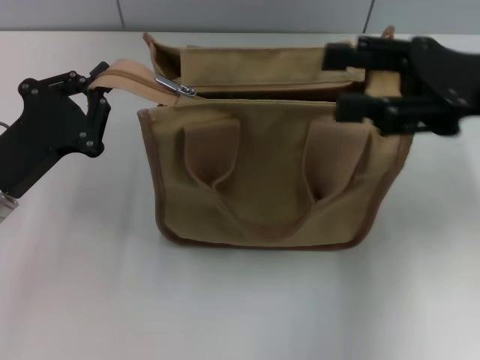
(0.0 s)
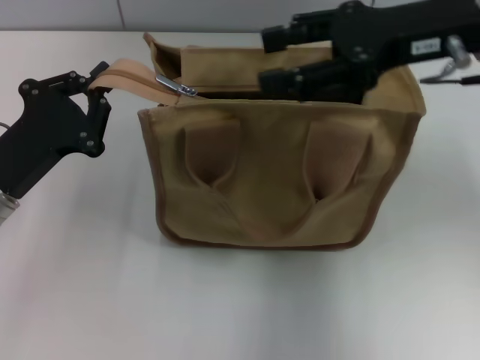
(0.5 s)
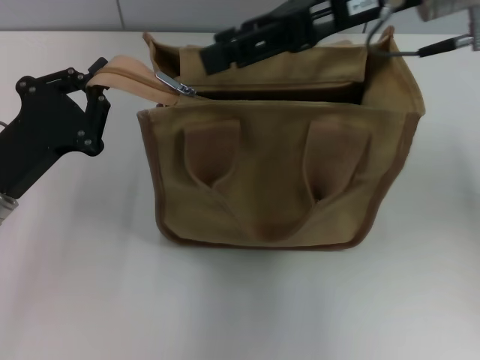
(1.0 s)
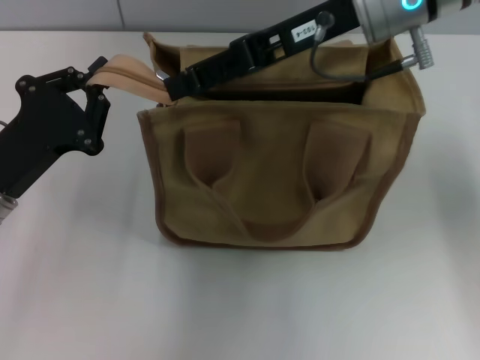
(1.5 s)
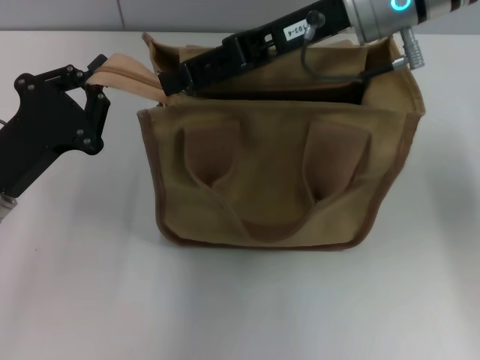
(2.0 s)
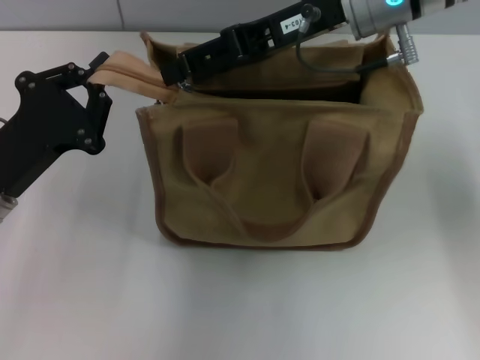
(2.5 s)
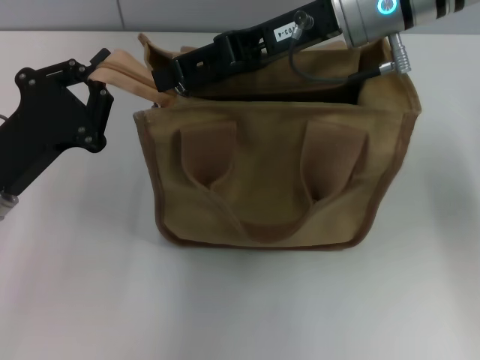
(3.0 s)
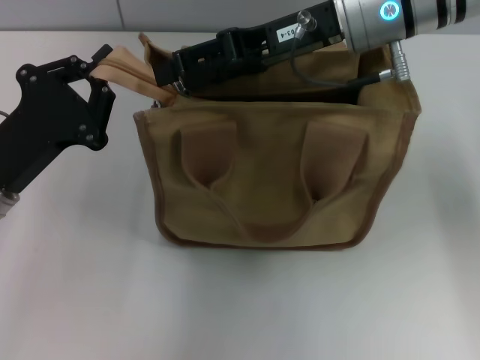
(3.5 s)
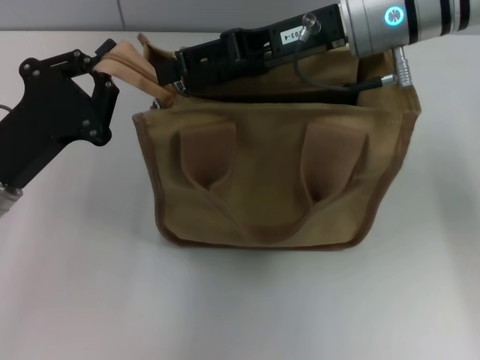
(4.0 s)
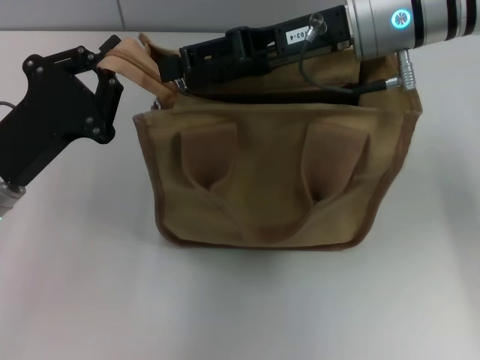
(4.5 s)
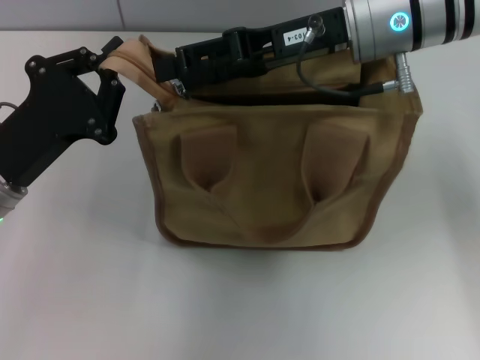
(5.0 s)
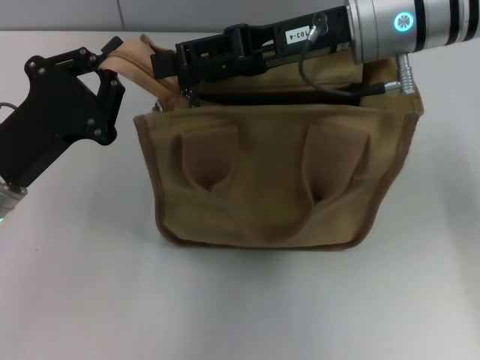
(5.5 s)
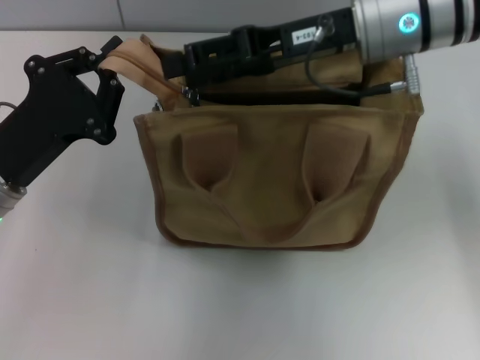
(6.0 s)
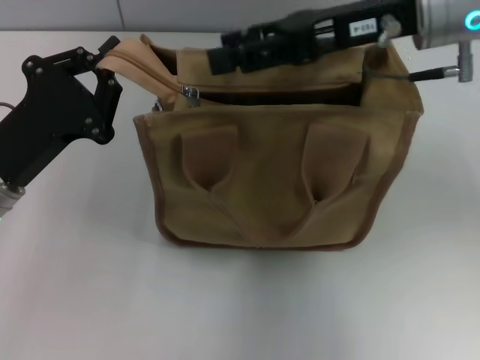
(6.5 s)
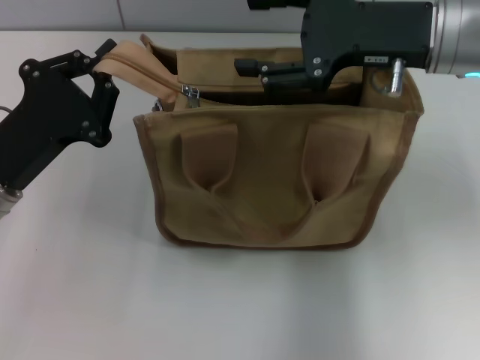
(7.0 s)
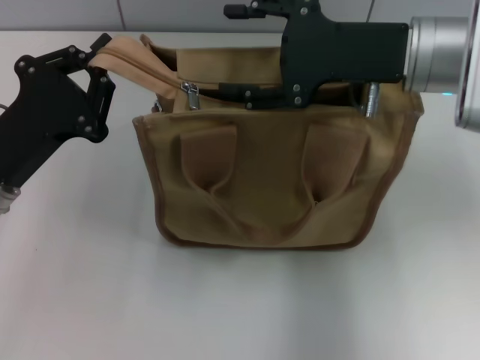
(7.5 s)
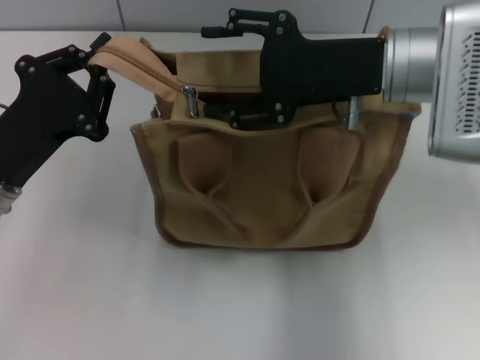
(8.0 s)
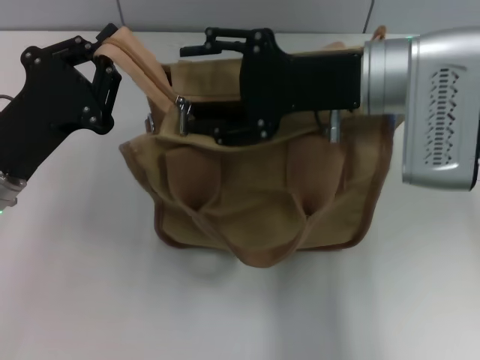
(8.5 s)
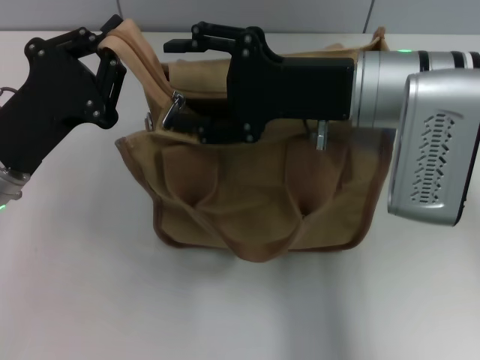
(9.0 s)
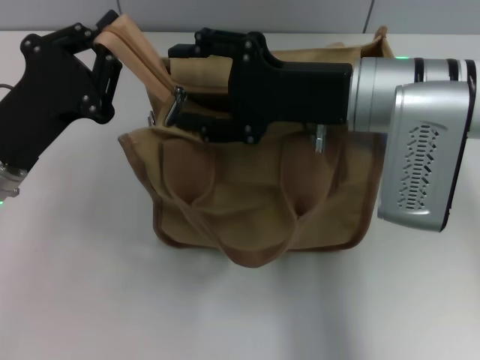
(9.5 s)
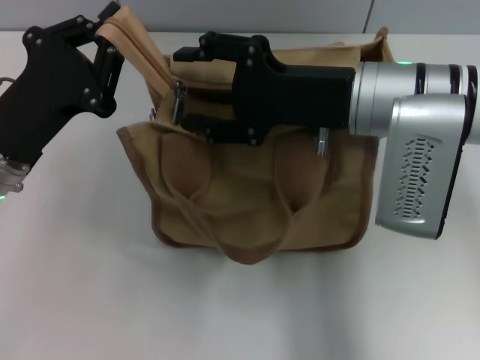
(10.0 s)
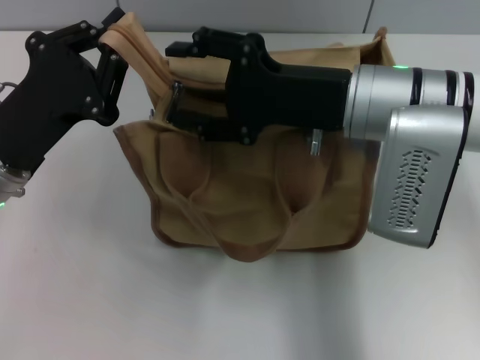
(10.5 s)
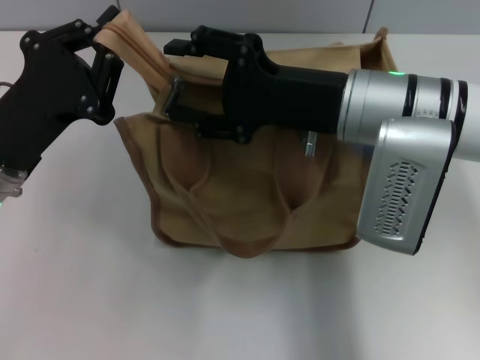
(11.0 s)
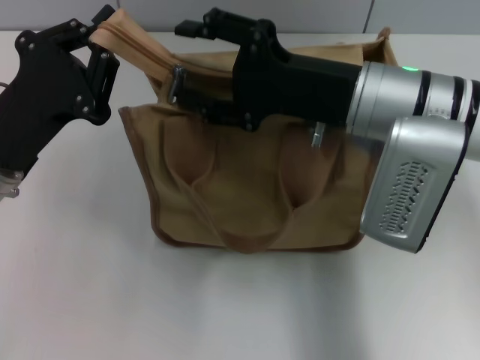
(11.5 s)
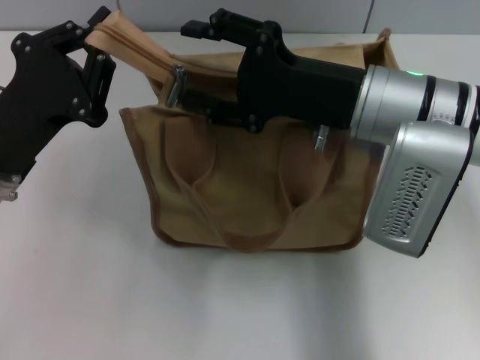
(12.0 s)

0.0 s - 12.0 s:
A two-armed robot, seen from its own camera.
0.0 s - 2.0 s: The right gripper goes roughly 15 cm to the left and forward.
2.0 s - 6.0 s: There are only small adjustments of the grippers.
10.0 s - 12.0 s: The grippers make only small movements.

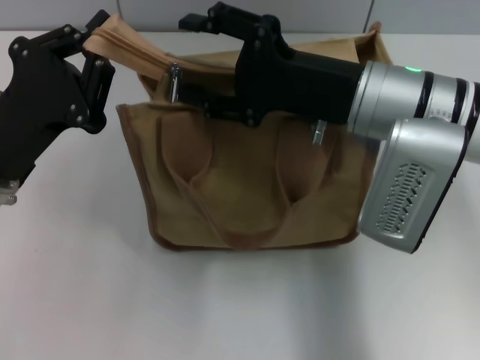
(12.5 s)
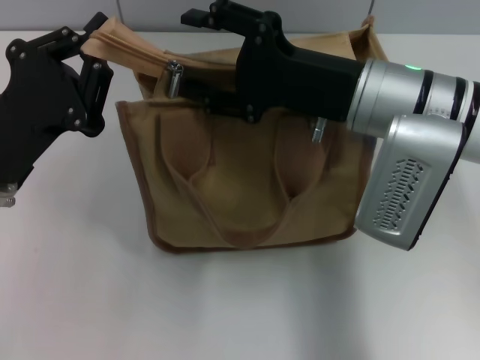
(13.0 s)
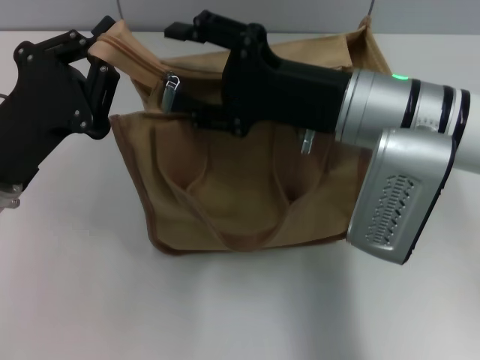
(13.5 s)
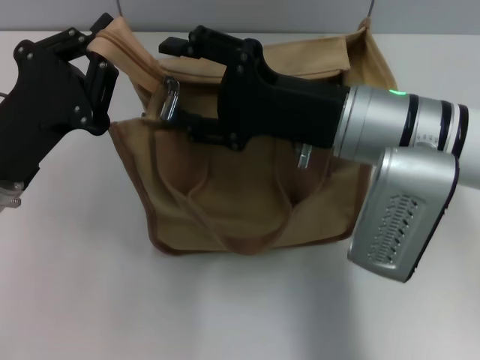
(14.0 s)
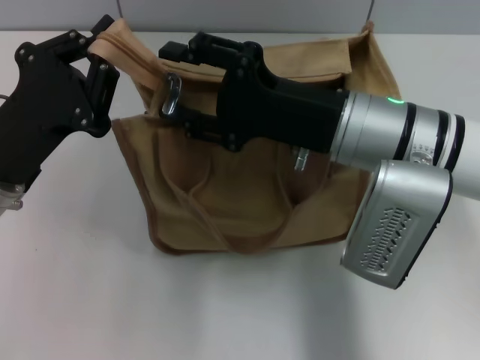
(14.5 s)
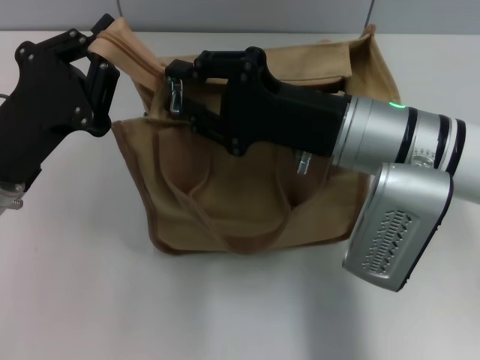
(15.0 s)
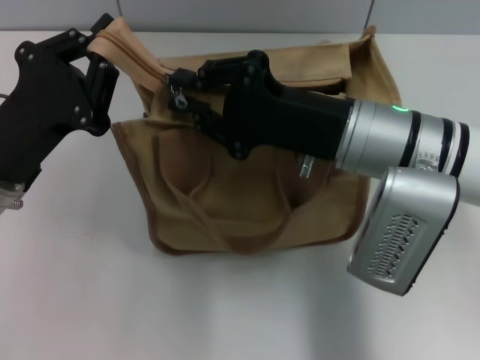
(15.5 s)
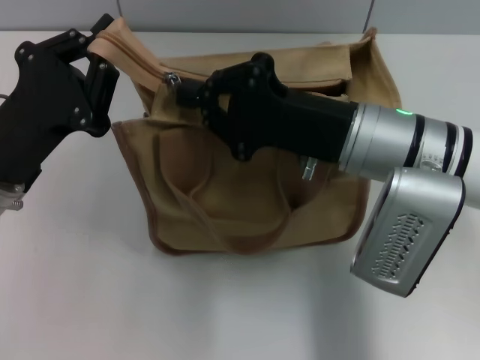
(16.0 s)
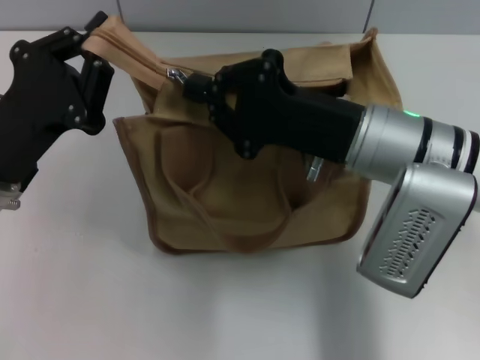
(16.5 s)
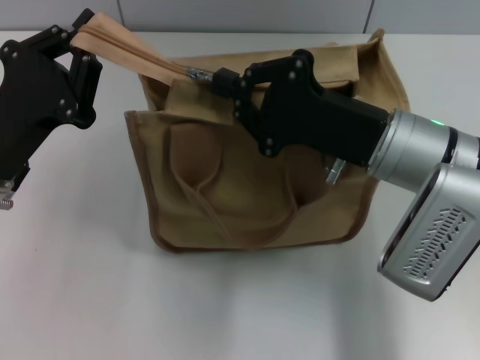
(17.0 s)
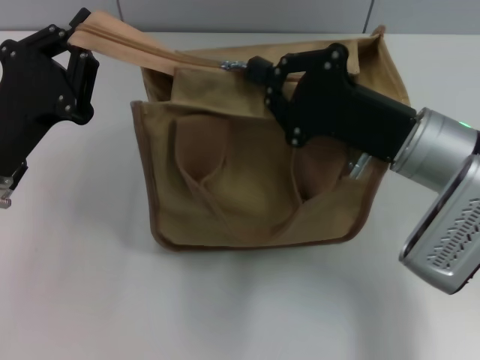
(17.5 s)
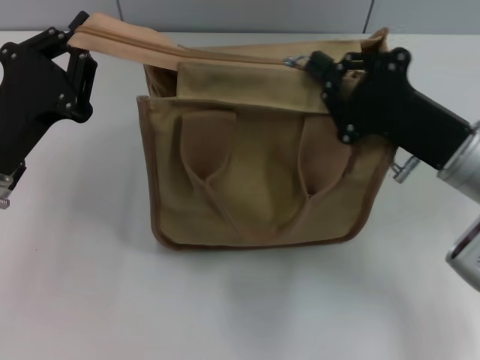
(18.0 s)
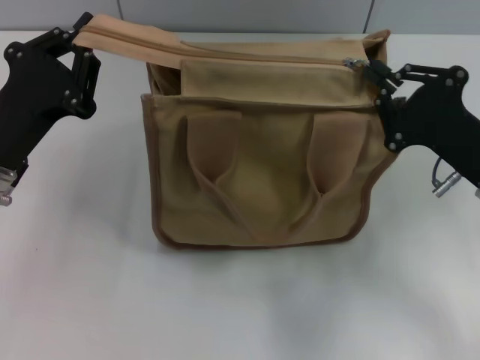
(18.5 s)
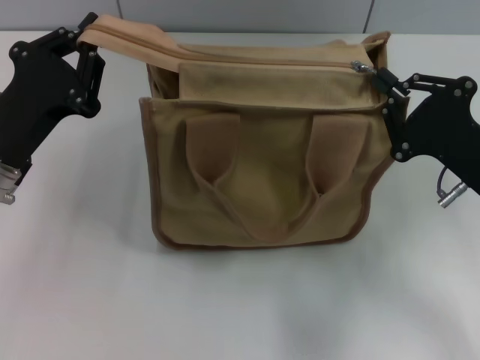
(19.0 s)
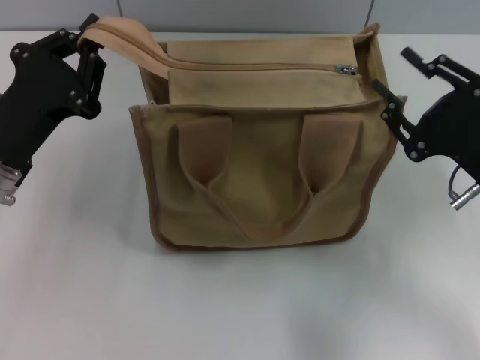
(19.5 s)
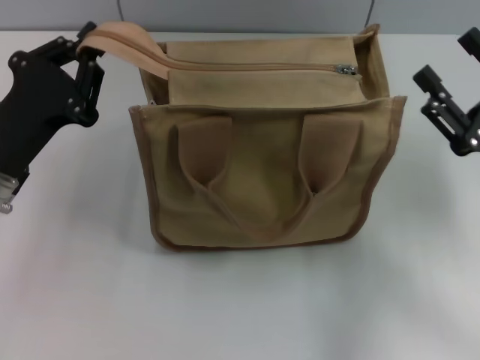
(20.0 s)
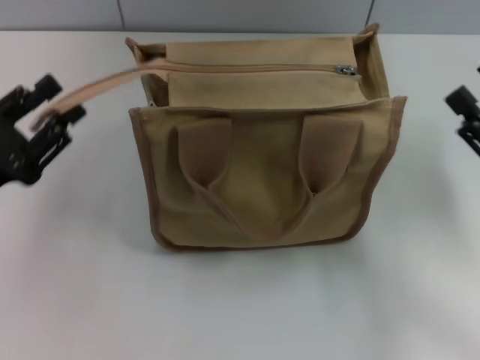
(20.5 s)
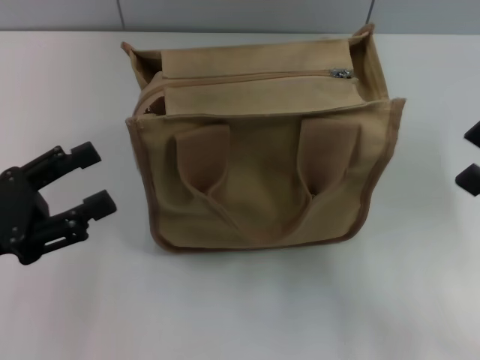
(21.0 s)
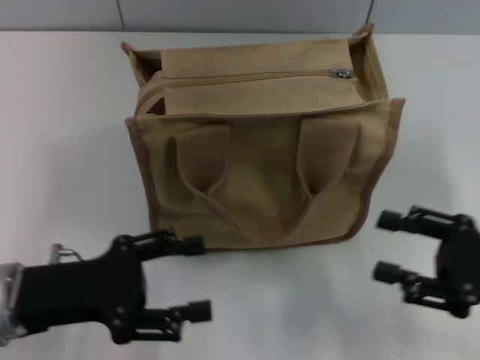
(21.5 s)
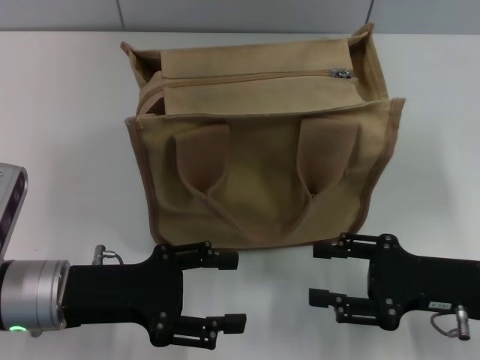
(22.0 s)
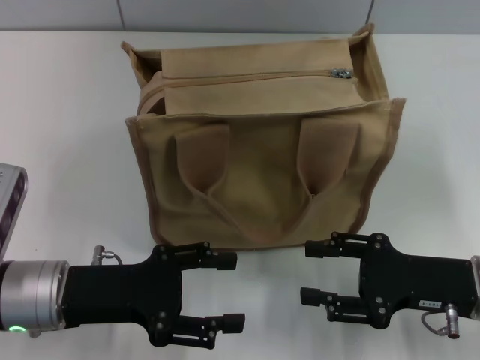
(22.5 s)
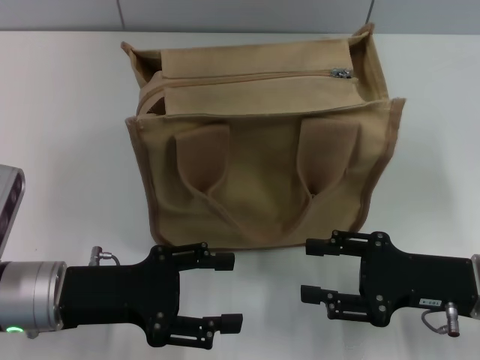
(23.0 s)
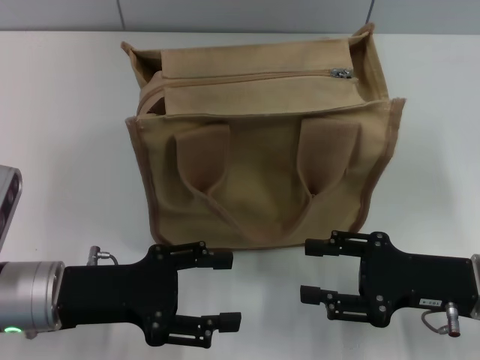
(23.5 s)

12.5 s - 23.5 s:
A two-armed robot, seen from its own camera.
Step, 12.5 s - 19.0 s: Pull up the zipper with your right hand.
Step, 19.5 s - 20.5 s: Grab the zipper with your left hand.
14.5 s - 16.0 s: The right gripper closes its fingers.
16.0 s - 18.0 s: The right gripper shifts approximately 10 cm to the right.
18.0 s - 20.0 s: The right gripper travels to the right by some 5 cm, and opens.
20.0 s - 21.5 s: The left gripper moves backward, roughly 5 cm, and opens up.
21.5 s - 23.5 s: The right gripper shifts roughly 5 cm to the left.
